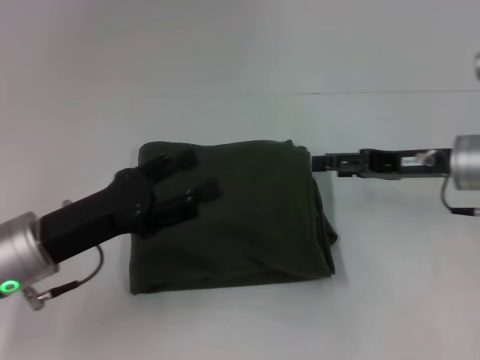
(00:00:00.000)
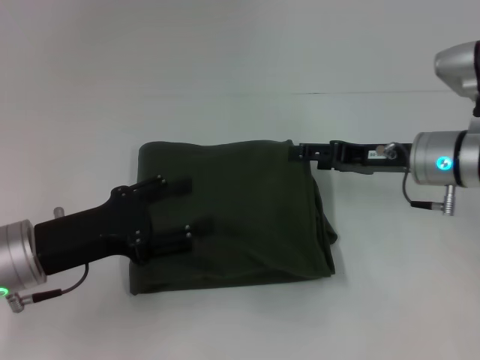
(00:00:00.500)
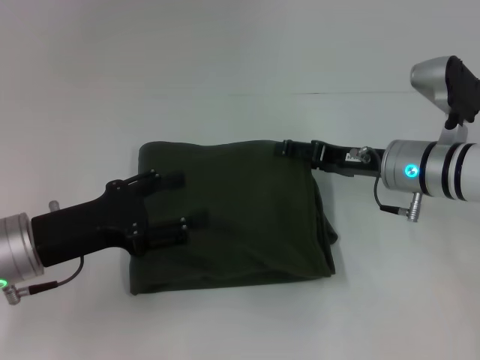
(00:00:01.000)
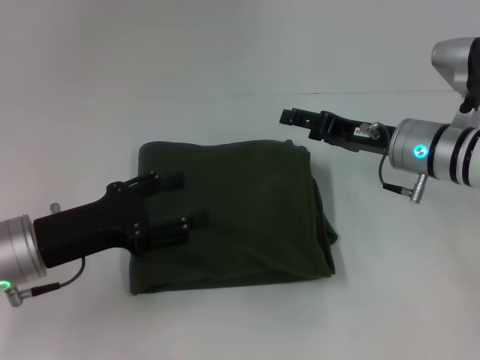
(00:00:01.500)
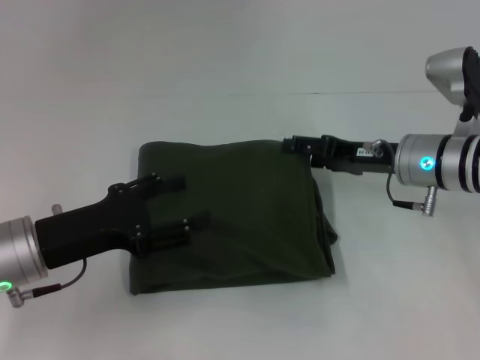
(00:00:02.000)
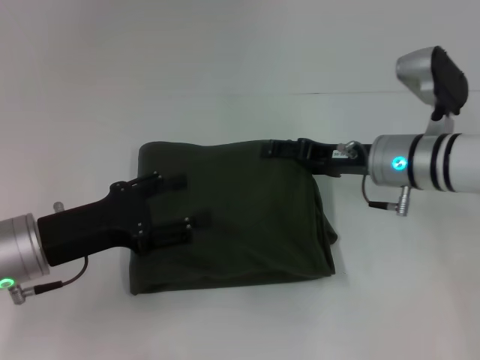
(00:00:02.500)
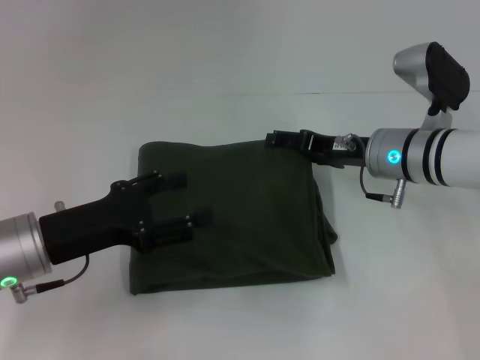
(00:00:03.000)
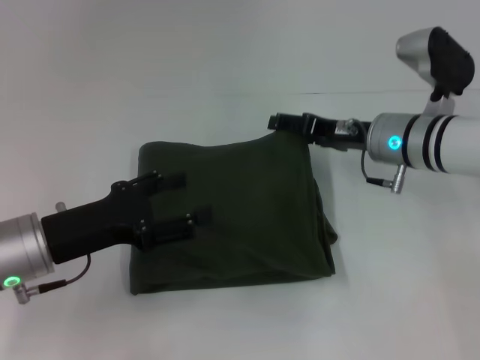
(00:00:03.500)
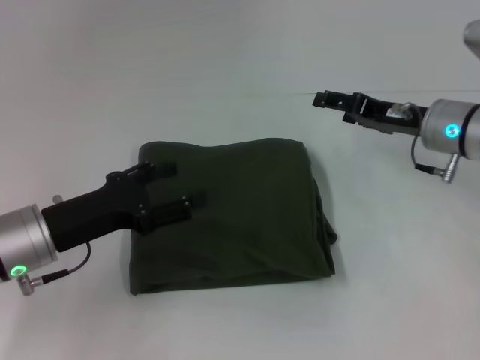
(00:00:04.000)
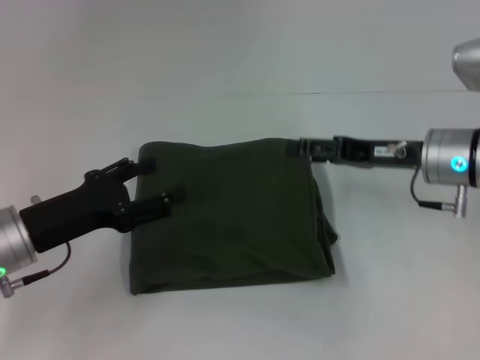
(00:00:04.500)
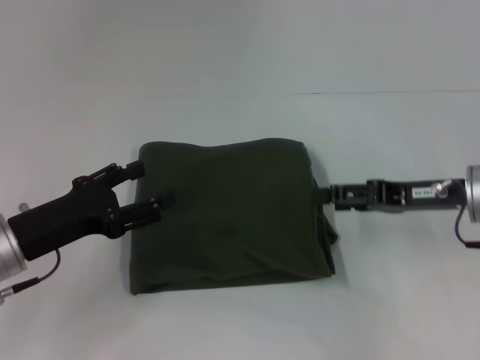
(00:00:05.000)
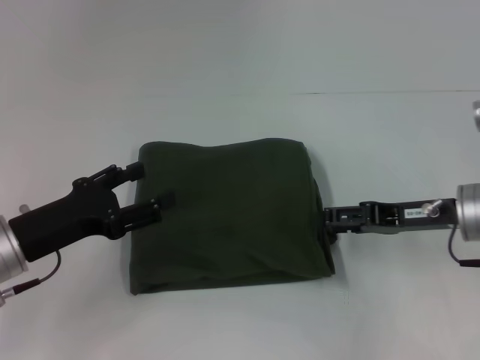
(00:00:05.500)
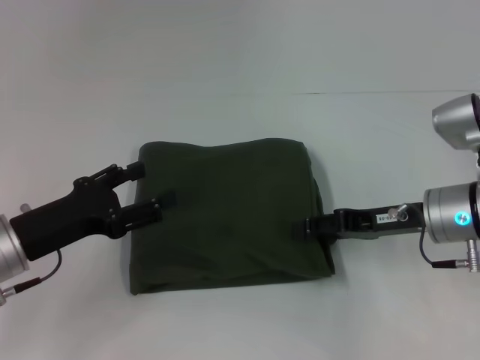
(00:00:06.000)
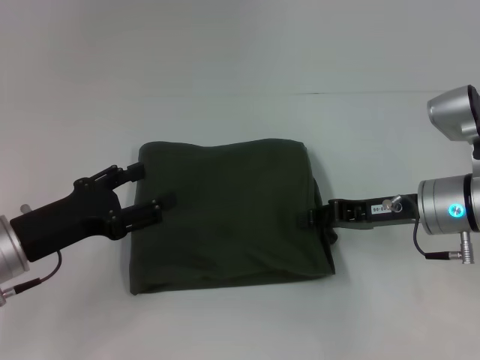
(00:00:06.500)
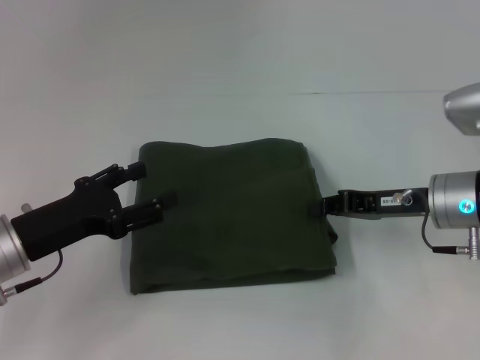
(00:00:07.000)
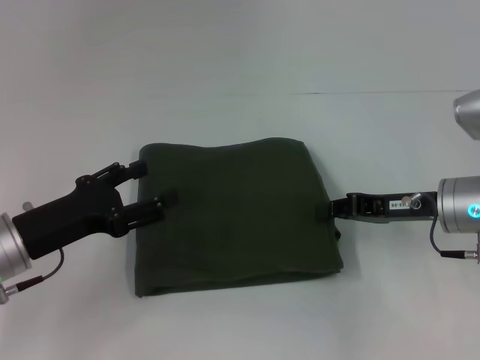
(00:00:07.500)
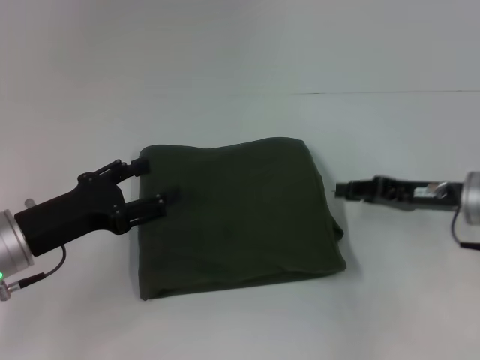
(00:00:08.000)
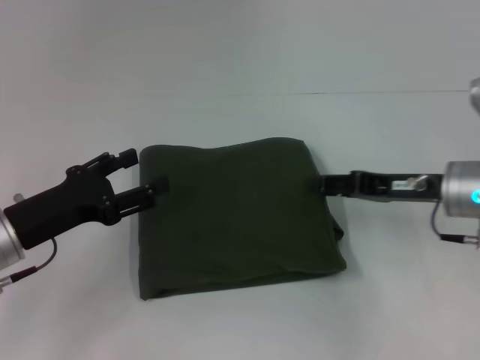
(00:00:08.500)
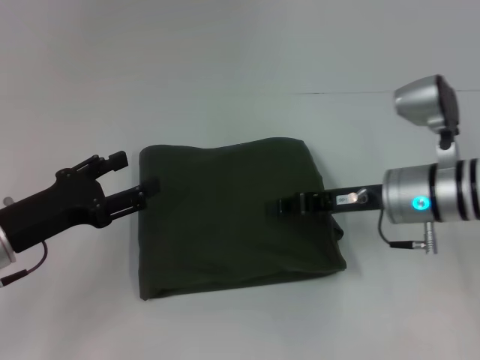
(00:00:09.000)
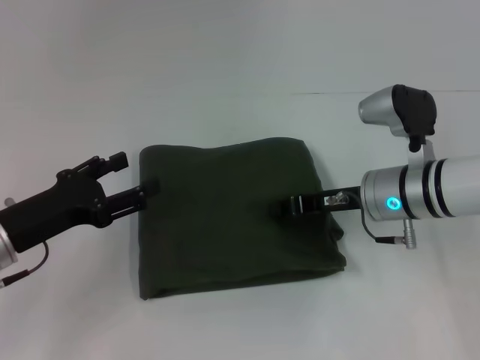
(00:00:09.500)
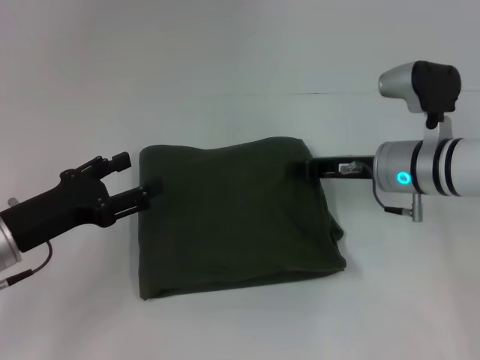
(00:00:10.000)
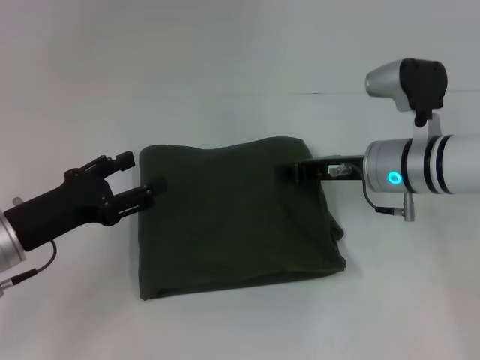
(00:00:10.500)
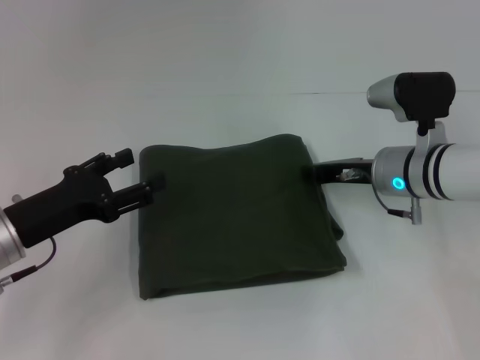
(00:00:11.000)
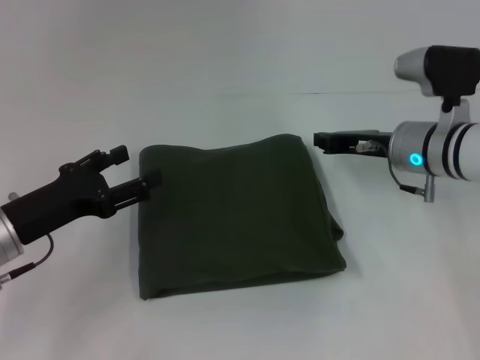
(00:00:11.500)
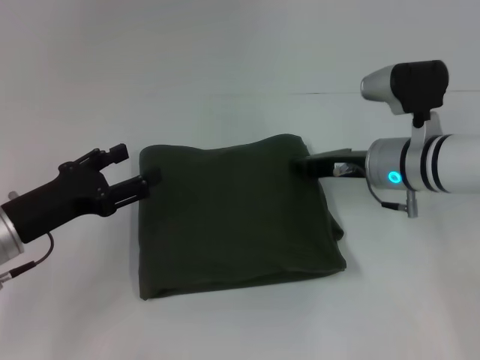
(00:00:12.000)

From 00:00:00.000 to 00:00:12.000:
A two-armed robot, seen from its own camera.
From 00:00:00.000 to 00:00:02.000: The right gripper moves roughly 5 cm.
From 00:00:02.000 to 00:00:04.000: The grippers move only a little.
From 00:00:04.000 to 00:00:06.000: The right gripper is displaced backward by about 5 cm.
From 00:00:06.000 to 00:00:08.000: The right gripper closes.
From 00:00:08.000 to 00:00:10.000: The right gripper shifts some 10 cm to the left, and opens and closes again.
From 00:00:10.000 to 00:00:12.000: The grippers make only small movements.

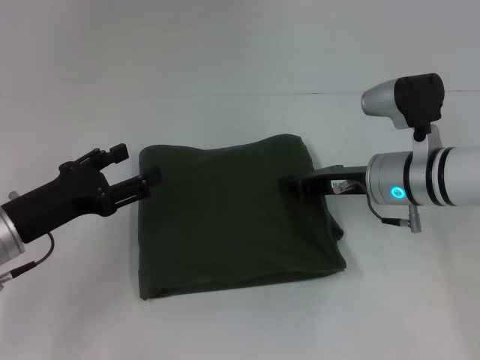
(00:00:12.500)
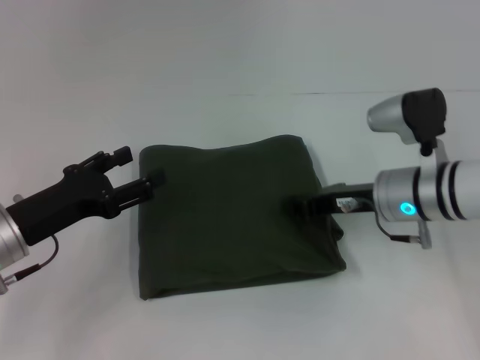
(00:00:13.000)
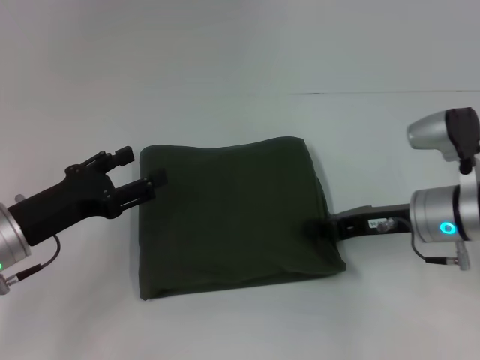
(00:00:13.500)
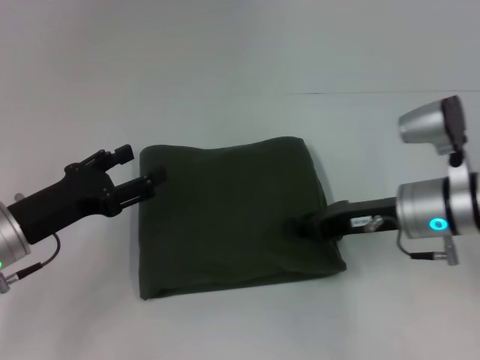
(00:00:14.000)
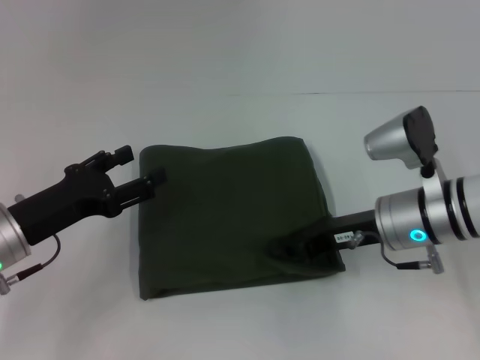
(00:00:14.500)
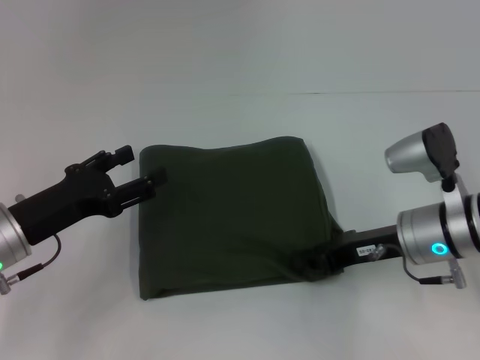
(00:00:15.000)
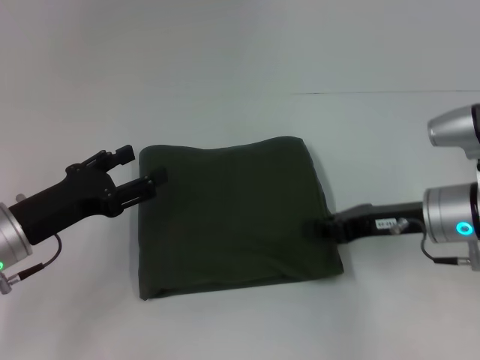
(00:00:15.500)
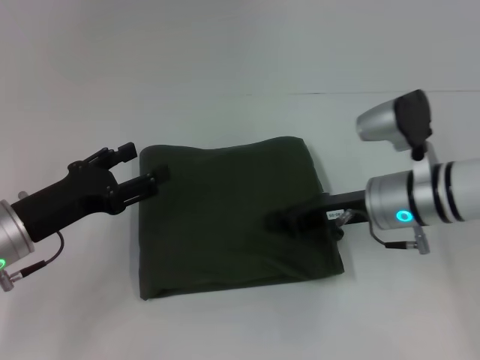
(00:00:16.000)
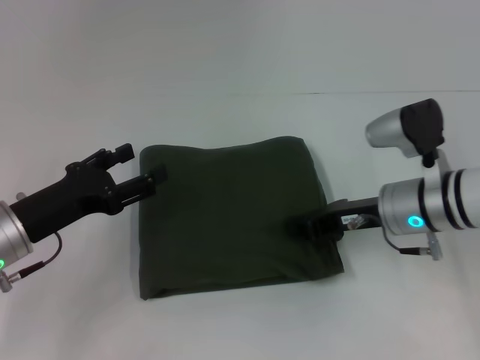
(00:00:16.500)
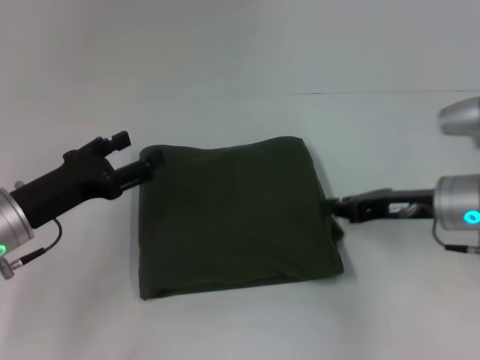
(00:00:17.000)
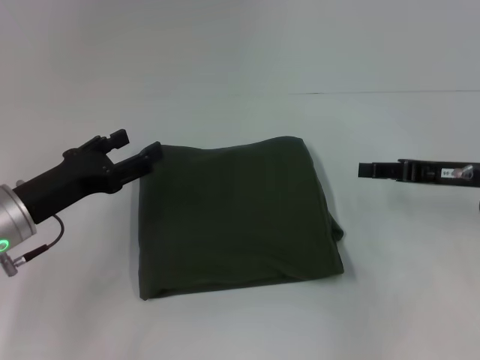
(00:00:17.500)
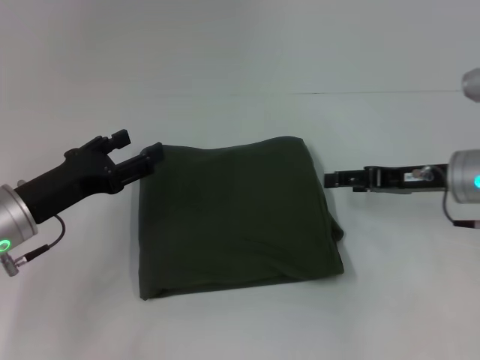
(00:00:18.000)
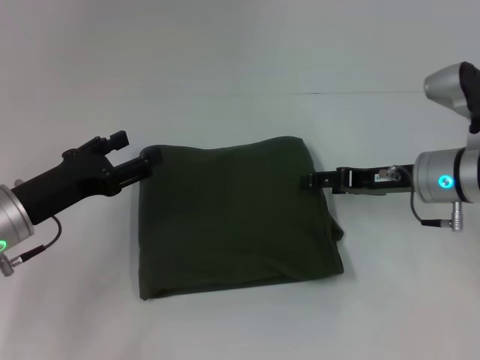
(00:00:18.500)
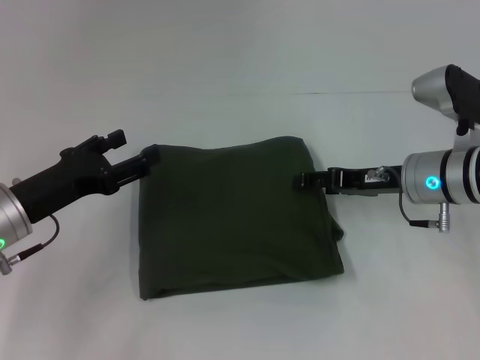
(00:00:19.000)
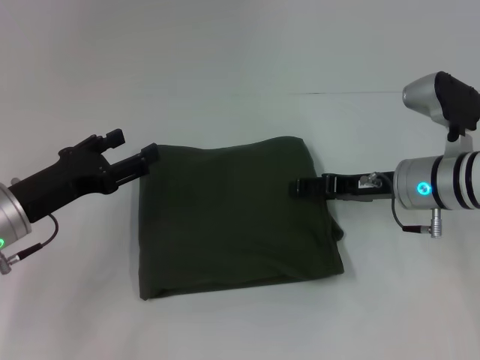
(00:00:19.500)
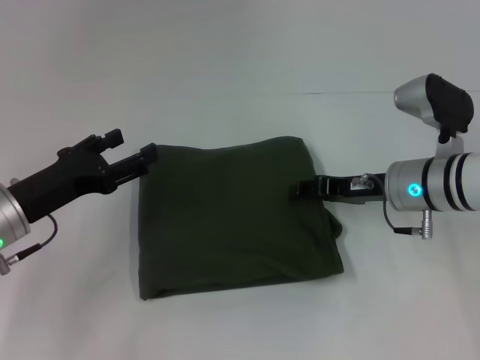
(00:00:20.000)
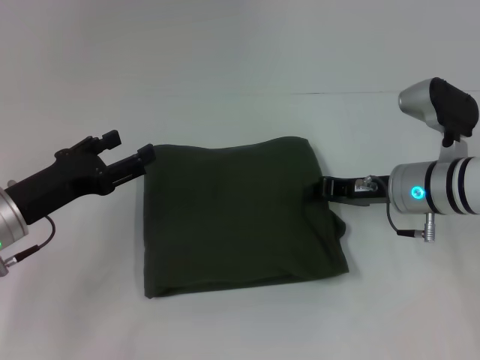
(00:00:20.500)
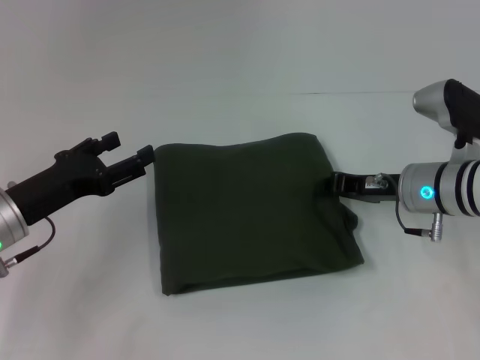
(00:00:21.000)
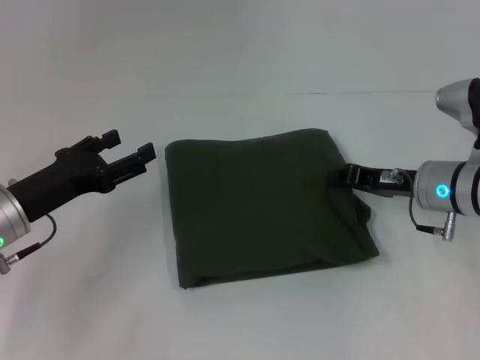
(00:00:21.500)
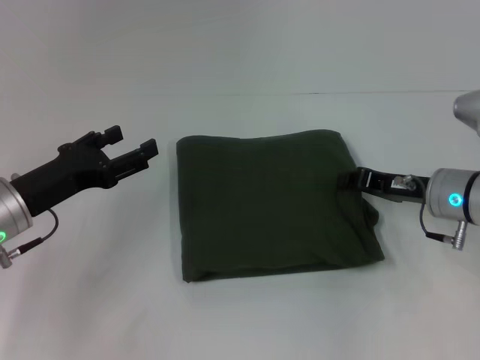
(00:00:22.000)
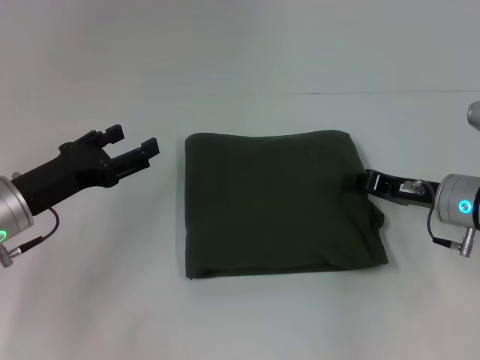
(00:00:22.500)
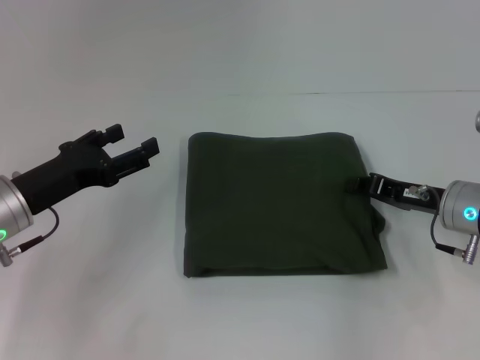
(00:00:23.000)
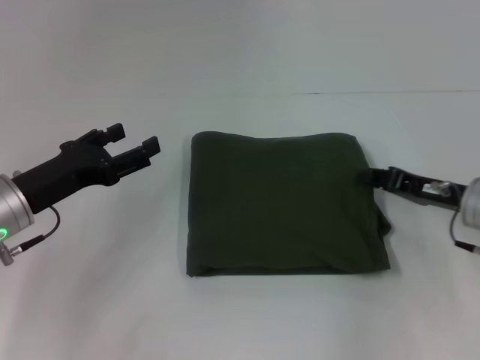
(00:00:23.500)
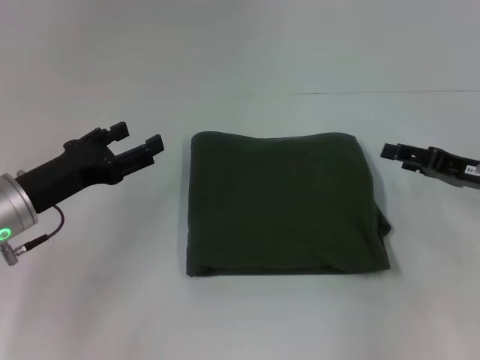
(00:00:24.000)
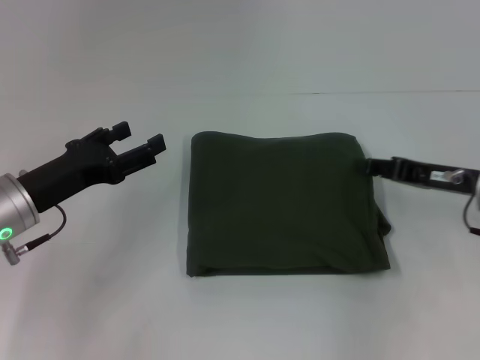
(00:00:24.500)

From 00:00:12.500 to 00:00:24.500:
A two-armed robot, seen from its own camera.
From 00:00:12.500 to 00:00:14.500: The grippers stay close to where they were, moving slightly.
From 00:00:14.500 to 00:00:16.500: There are only small adjustments of the grippers.
From 00:00:16.500 to 00:00:18.500: The right gripper opens its fingers.
From 00:00:18.500 to 00:00:20.500: The right gripper closes up.
From 00:00:20.500 to 00:00:22.500: The right gripper shifts by about 5 cm.

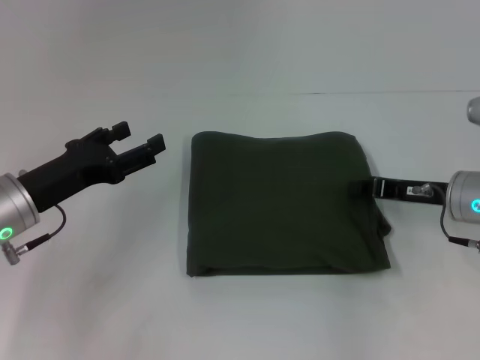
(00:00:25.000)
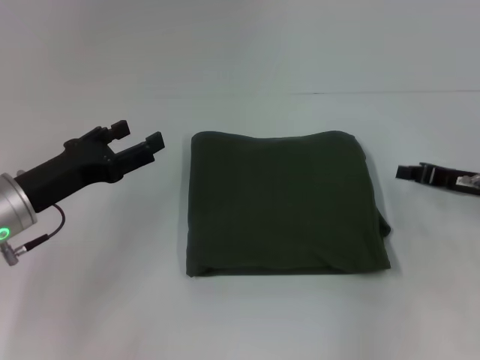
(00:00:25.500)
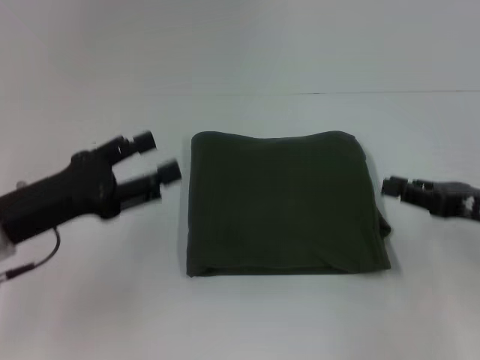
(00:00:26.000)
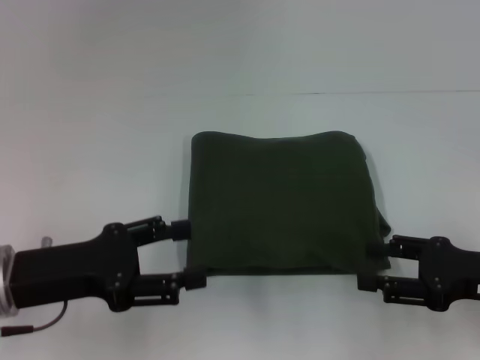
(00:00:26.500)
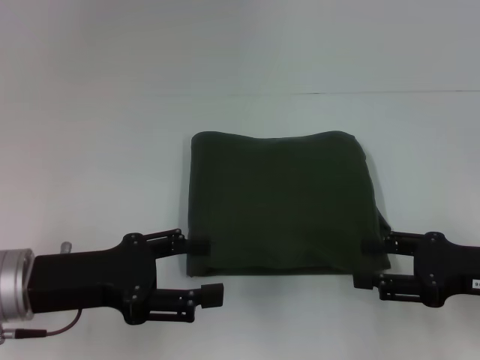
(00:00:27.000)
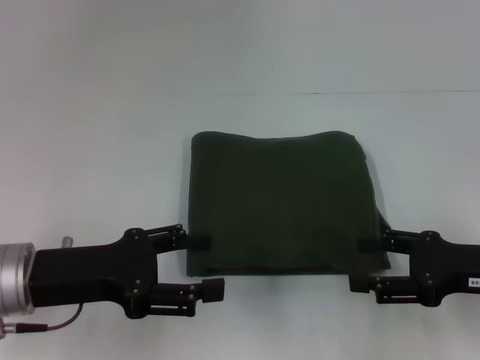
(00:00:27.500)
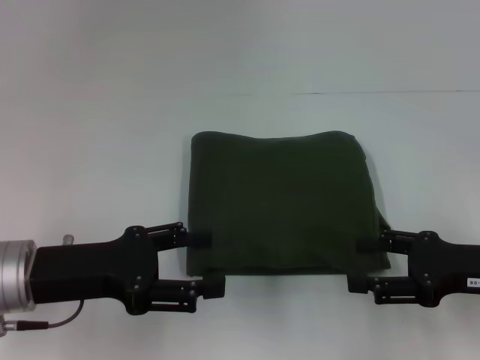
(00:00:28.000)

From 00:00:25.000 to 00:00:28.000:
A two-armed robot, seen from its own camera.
From 00:00:25.000 to 00:00:26.500: The right gripper is displaced backward by approximately 10 cm, and opens up. The left gripper goes approximately 5 cm backward.
From 00:00:26.500 to 00:00:28.000: The grippers stay close to where they were, moving slightly.
